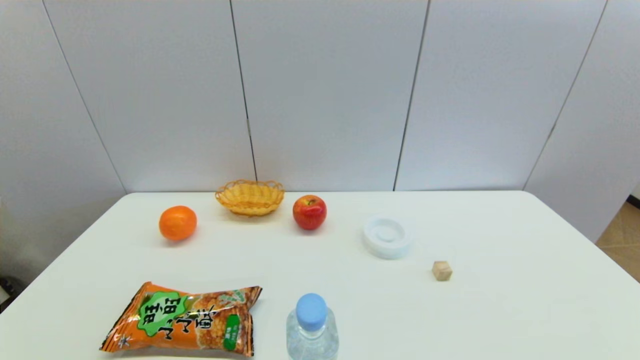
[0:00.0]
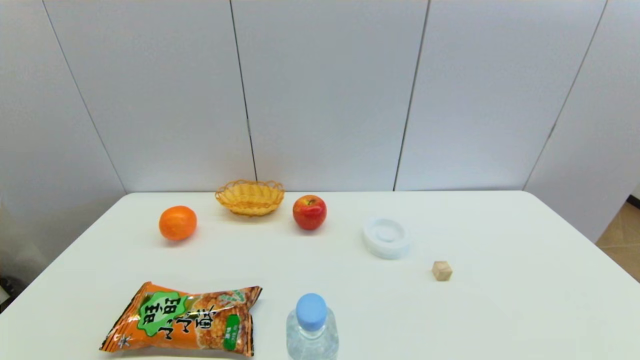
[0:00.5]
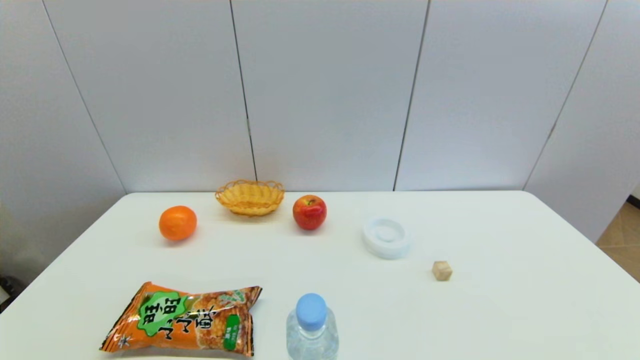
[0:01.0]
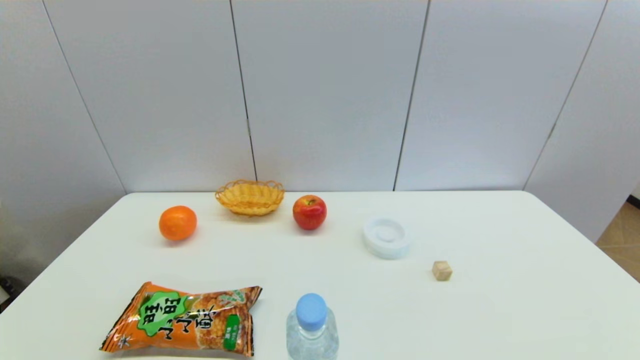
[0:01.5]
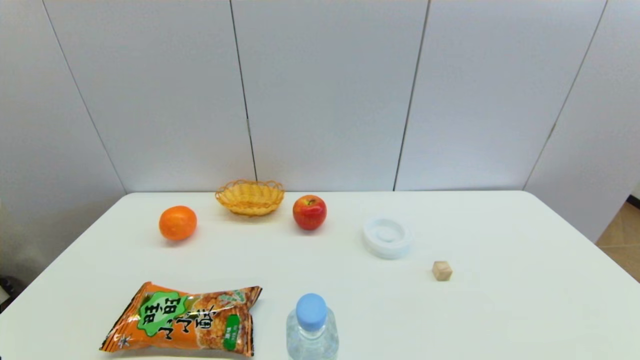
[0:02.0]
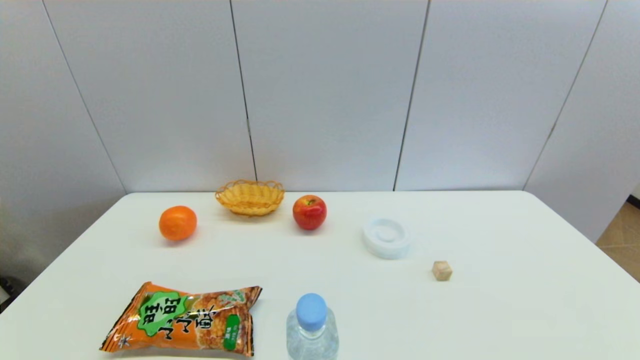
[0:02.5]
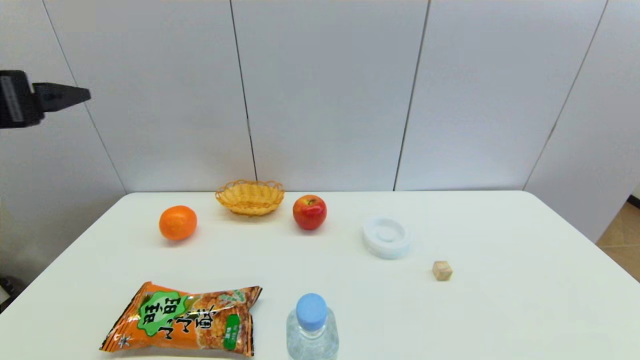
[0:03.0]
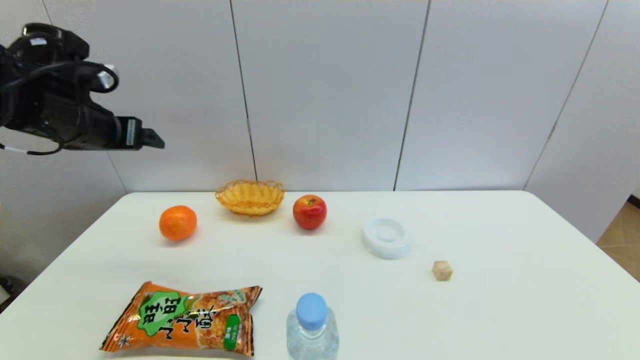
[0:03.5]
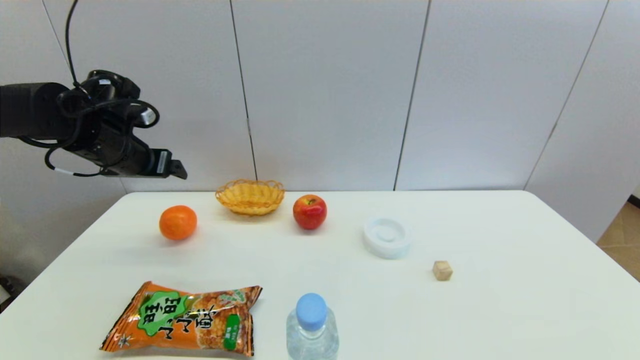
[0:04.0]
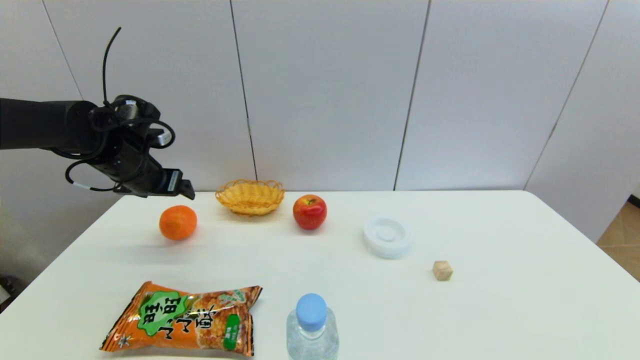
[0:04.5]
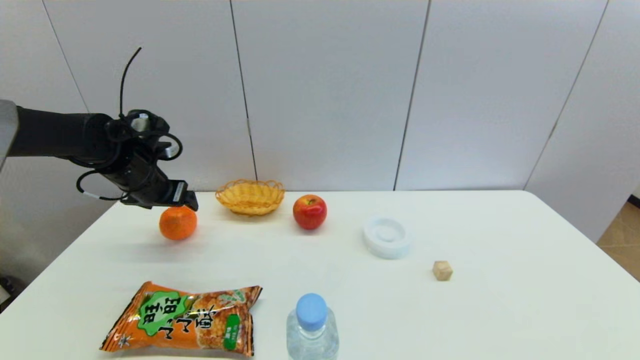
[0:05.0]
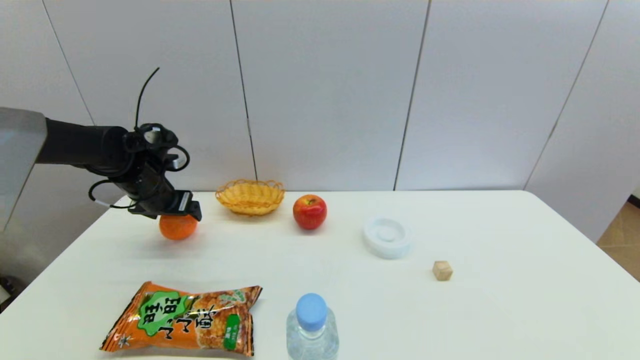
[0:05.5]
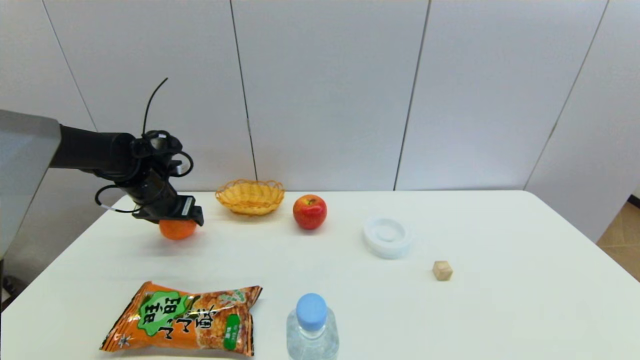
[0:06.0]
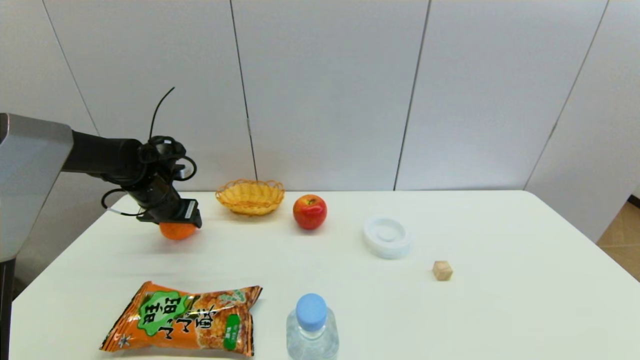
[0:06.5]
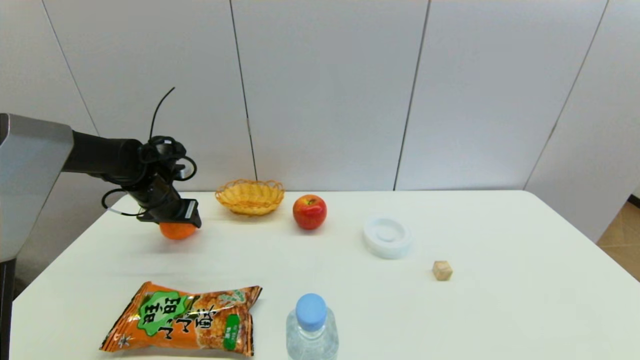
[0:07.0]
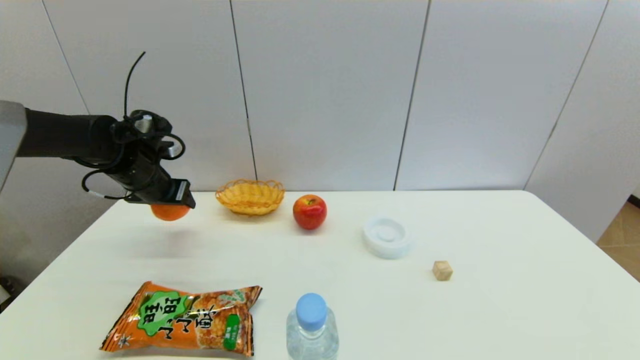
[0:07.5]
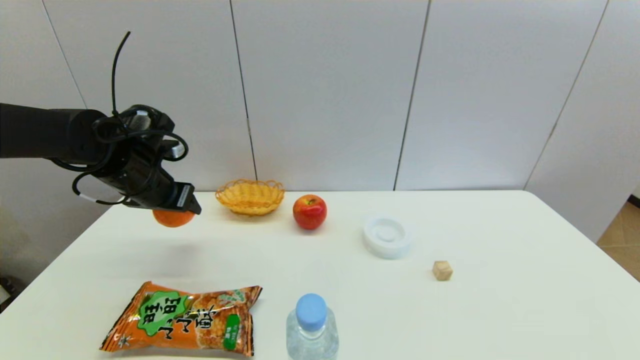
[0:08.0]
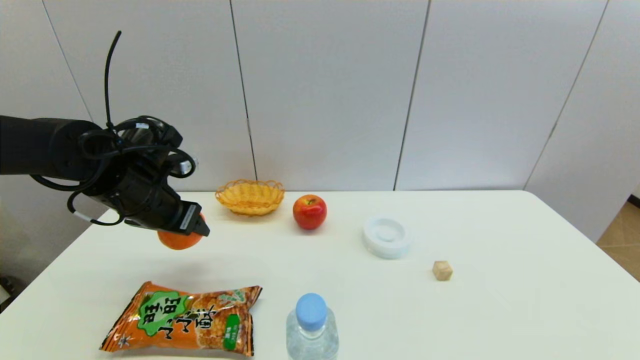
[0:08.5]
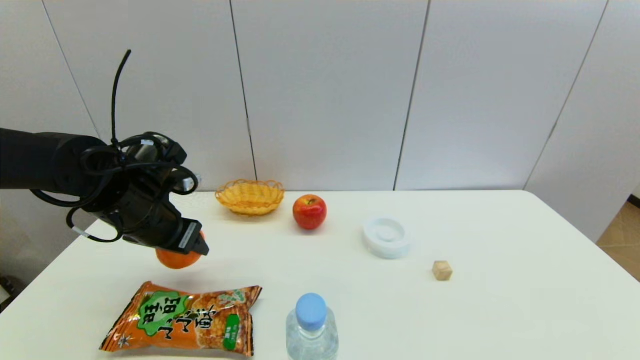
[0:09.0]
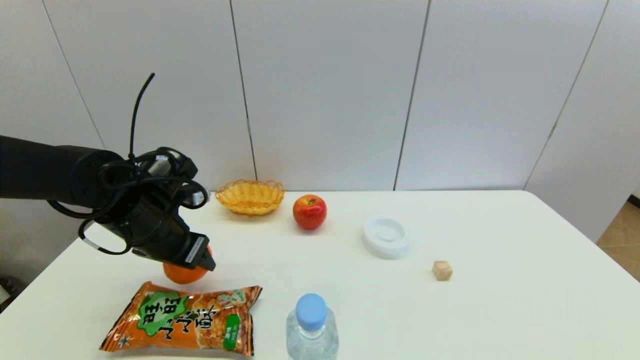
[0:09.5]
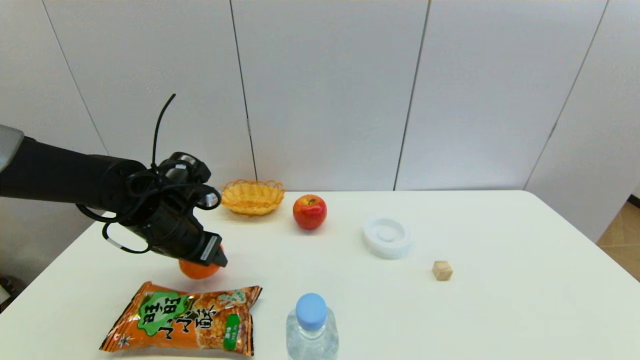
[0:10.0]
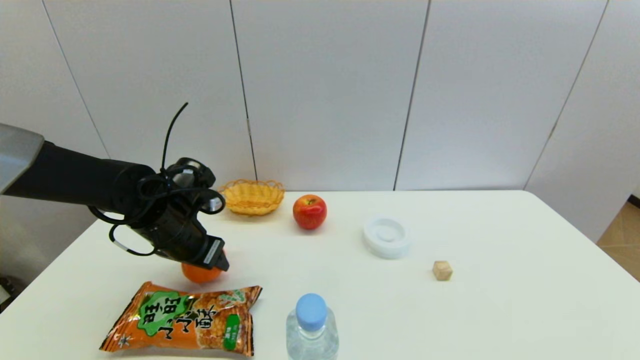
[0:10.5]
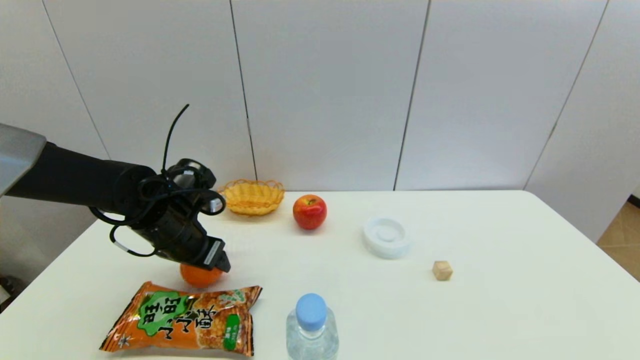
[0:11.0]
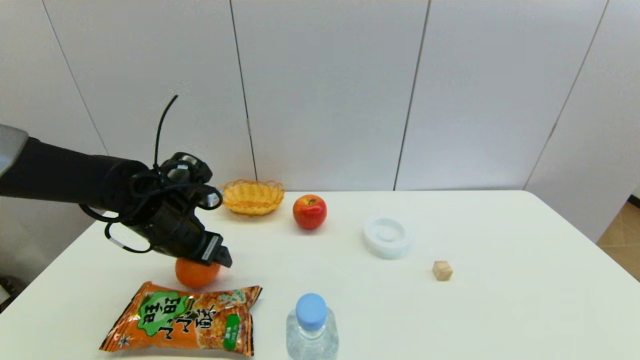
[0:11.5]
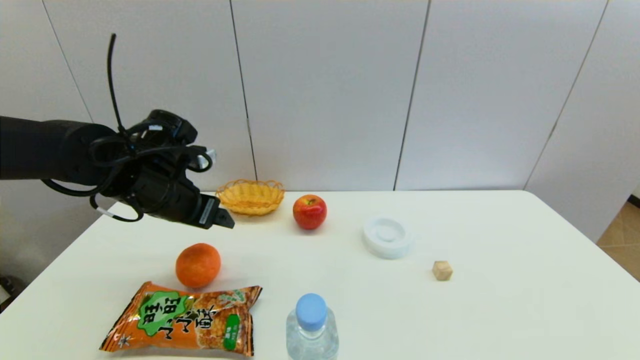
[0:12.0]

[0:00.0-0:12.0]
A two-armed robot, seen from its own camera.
Step, 0:03.0 to 0:06.5: Grasp the orange with left gripper.
Step, 0:07.5 to 0:11.0: Place the orange on the table with left gripper.
0:02.0 to 0:04.0: The left gripper moves forward, approximately 40 cm.
0:04.0 to 0:06.0: The left gripper is displaced downward by about 10 cm.
0:06.0 to 0:08.0: The left gripper goes about 10 cm upward and backward, and closes its fingers.
0:08.0 to 0:10.0: The left gripper is displaced downward by some 5 cm.
0:10.0 to 0:12.0: The left gripper travels upward by about 5 cm, and opens its fingers.

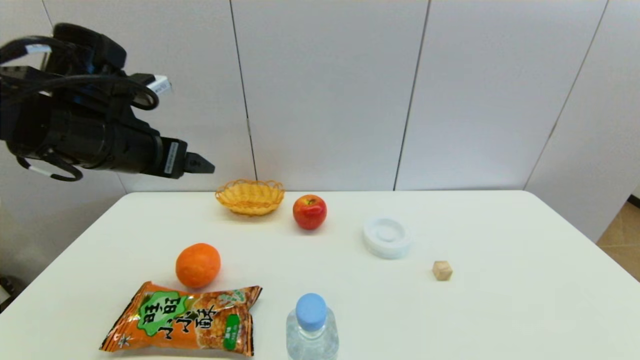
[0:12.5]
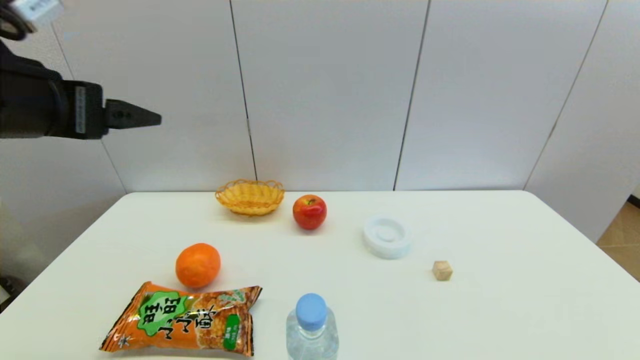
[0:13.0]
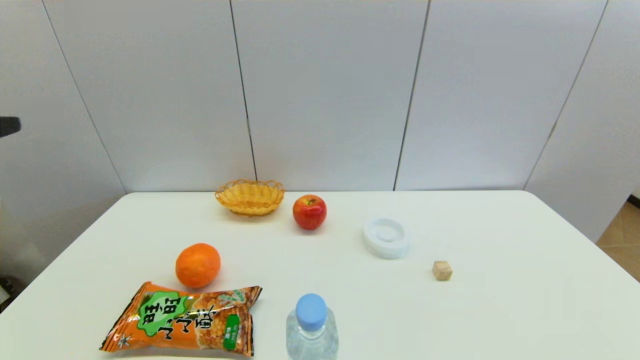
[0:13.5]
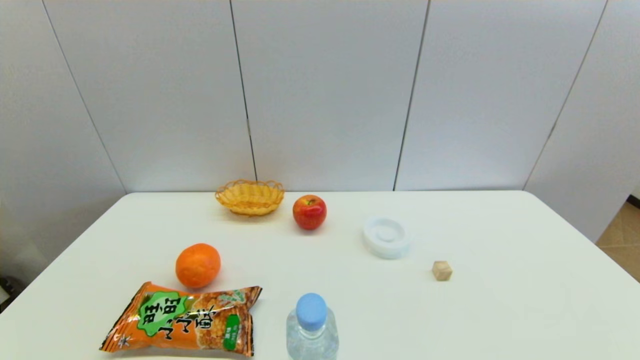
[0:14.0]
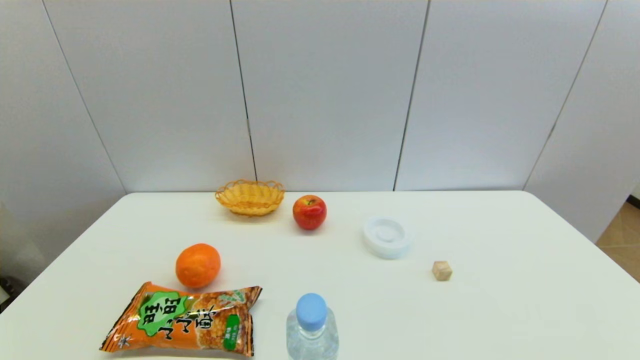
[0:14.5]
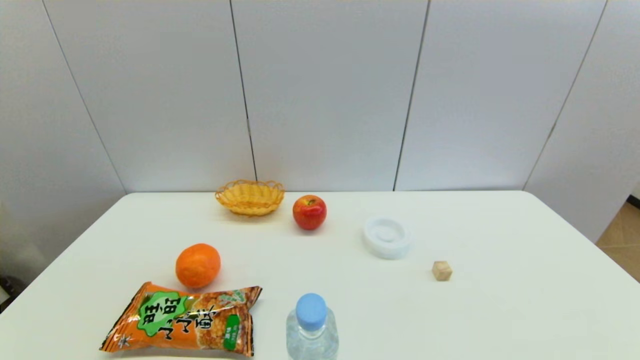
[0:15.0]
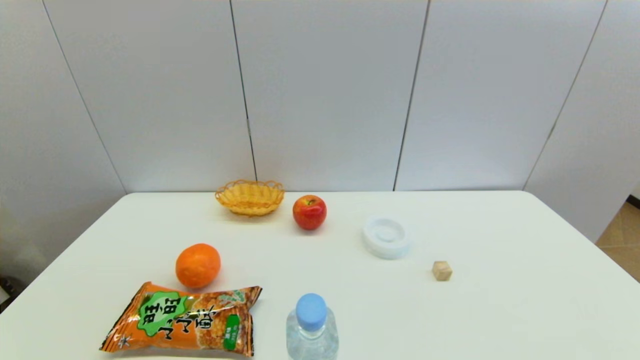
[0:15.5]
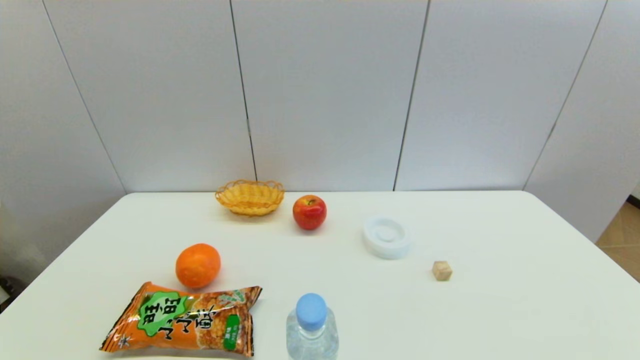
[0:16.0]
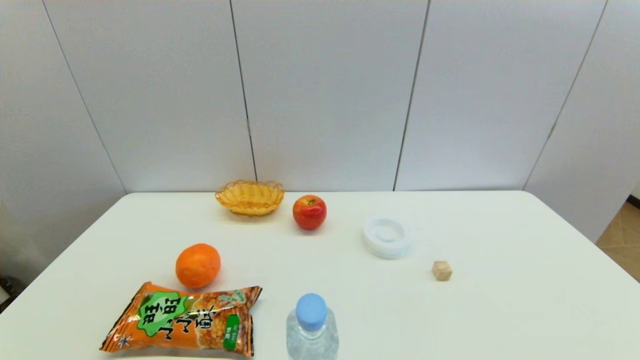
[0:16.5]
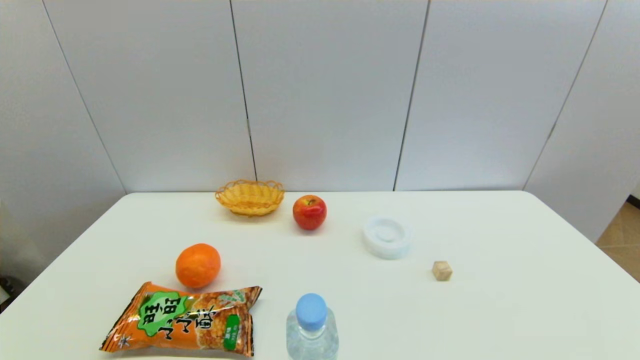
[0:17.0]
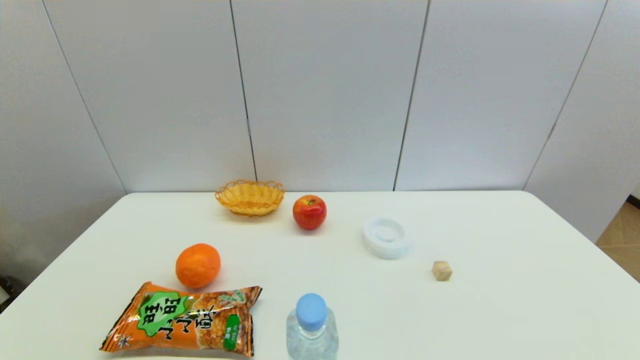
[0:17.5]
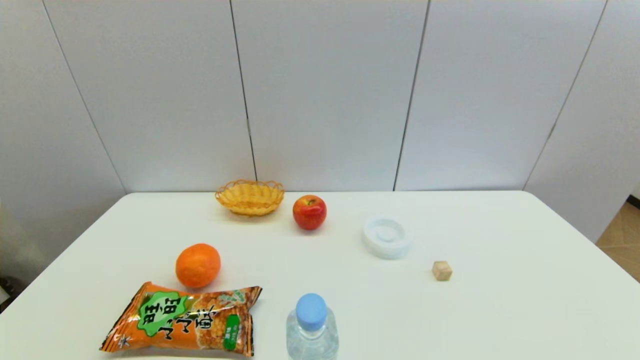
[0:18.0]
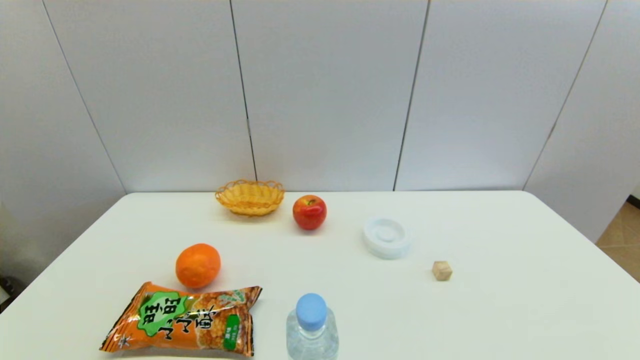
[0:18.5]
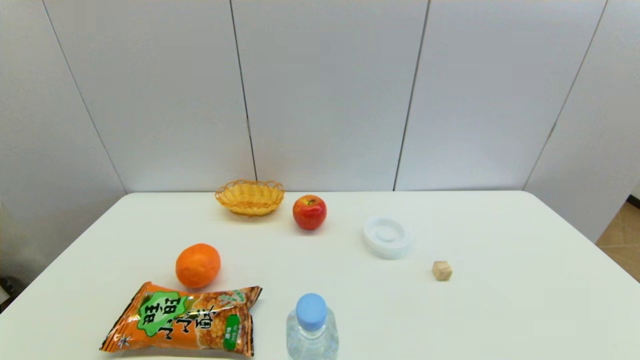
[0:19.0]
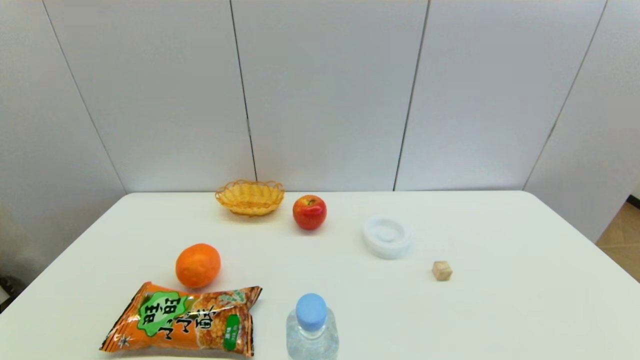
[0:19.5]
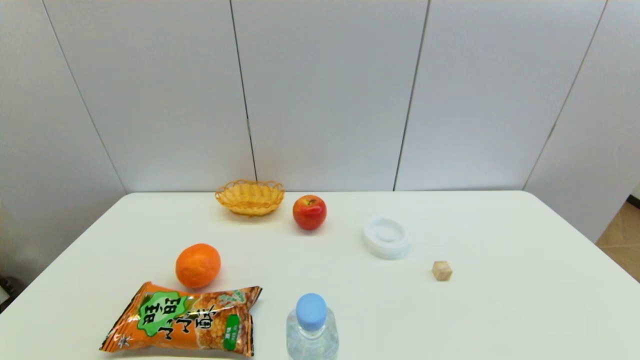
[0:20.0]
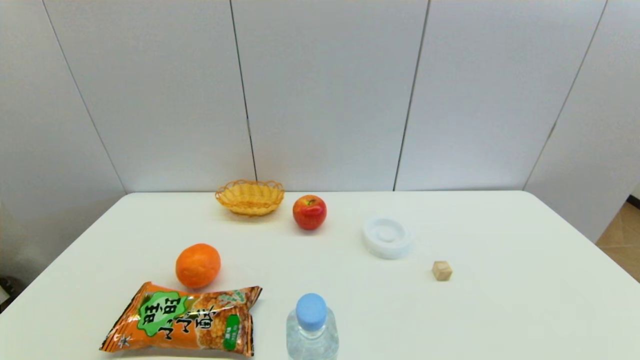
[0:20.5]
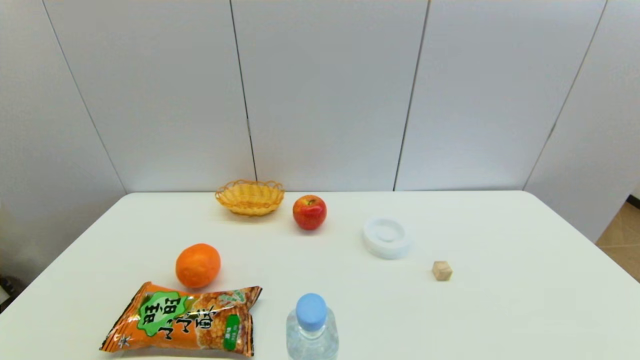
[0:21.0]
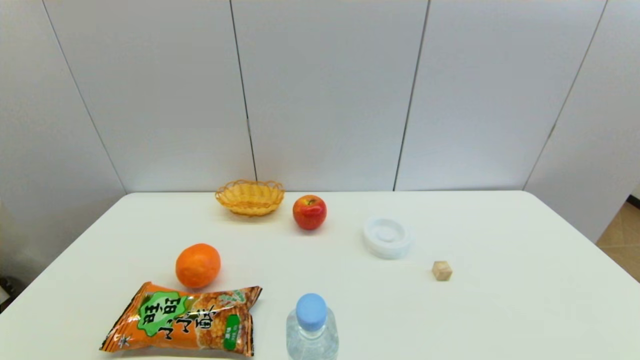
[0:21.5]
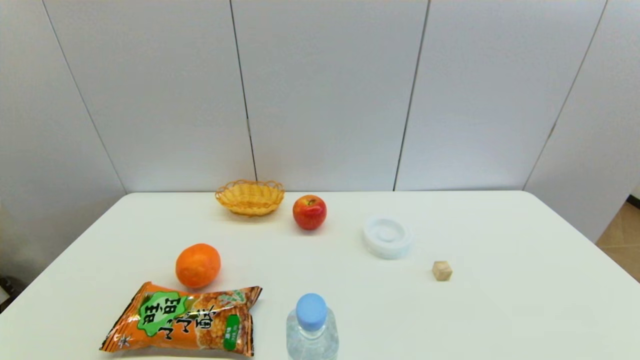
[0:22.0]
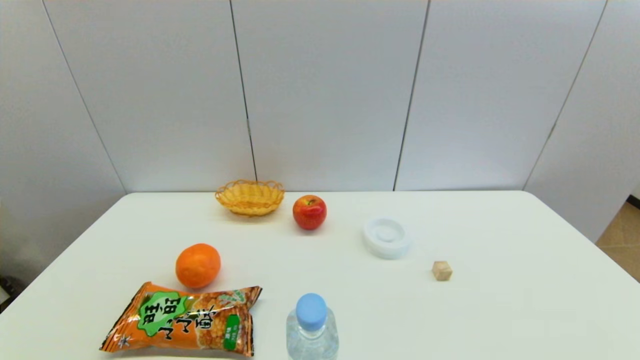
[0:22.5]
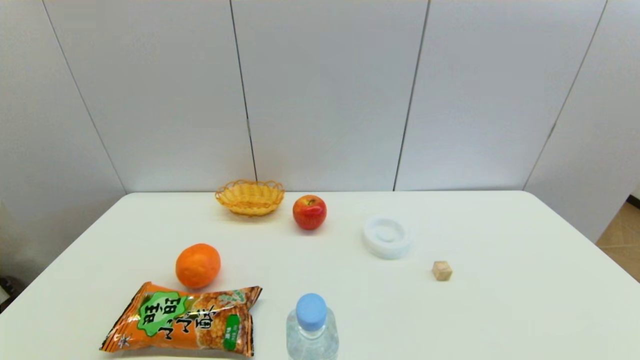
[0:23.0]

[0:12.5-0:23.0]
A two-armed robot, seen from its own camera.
0:12.5 to 0:14.5: The left gripper shifts some 30 cm backward.
0:19.0 to 0:23.0: Neither gripper changes place.
